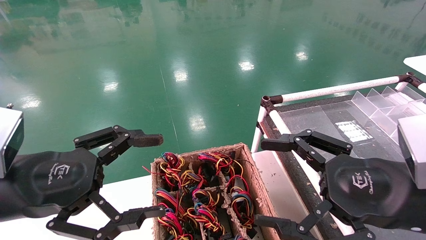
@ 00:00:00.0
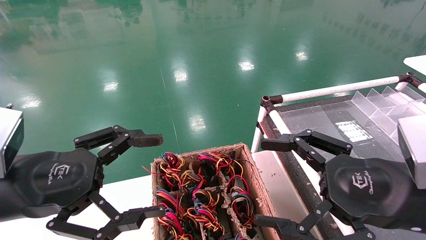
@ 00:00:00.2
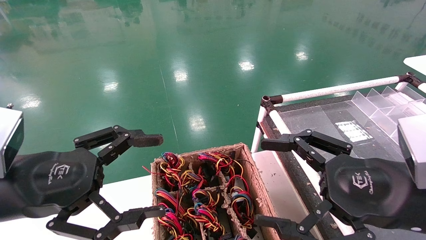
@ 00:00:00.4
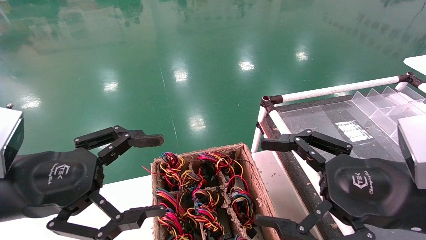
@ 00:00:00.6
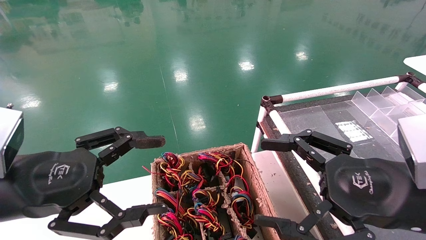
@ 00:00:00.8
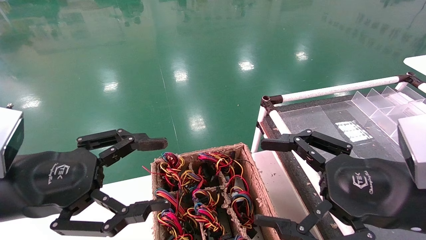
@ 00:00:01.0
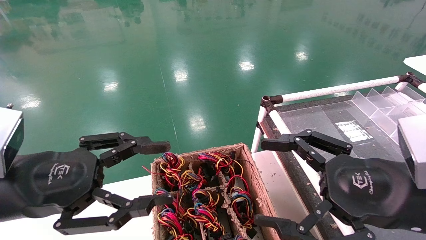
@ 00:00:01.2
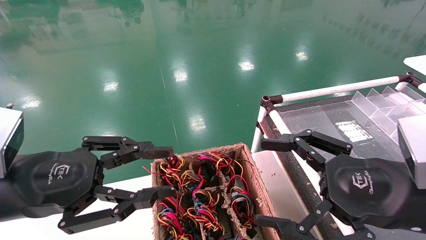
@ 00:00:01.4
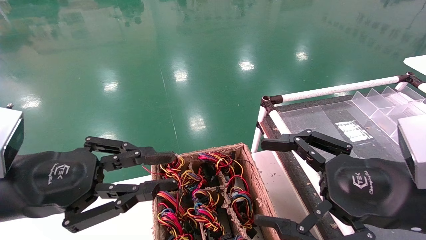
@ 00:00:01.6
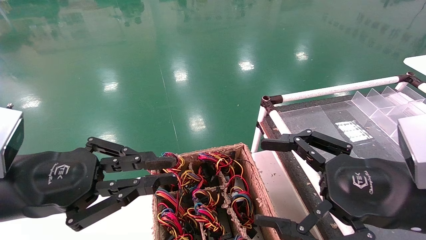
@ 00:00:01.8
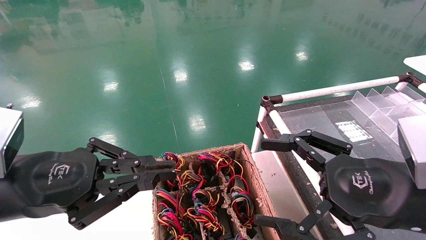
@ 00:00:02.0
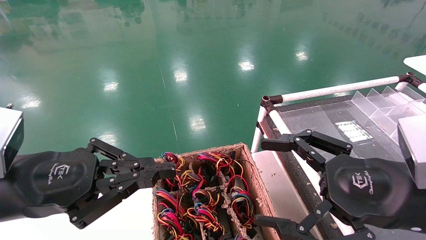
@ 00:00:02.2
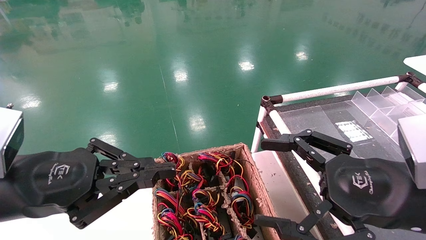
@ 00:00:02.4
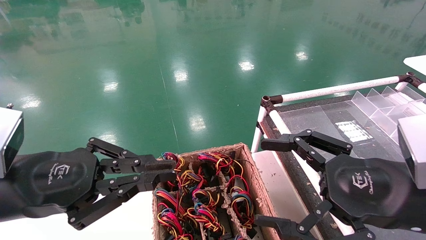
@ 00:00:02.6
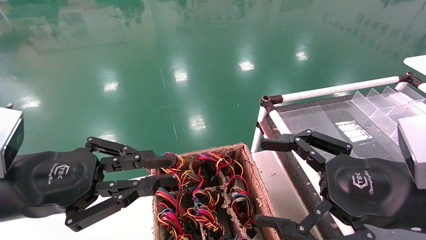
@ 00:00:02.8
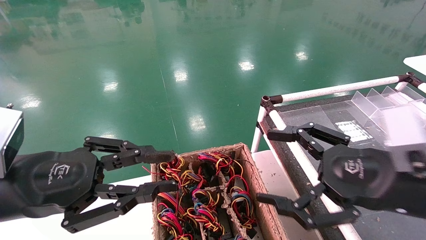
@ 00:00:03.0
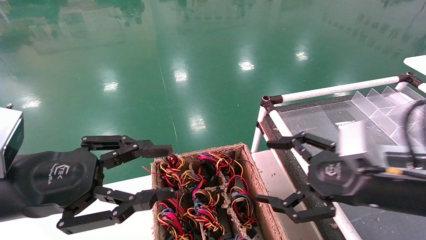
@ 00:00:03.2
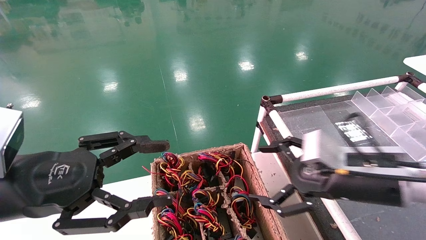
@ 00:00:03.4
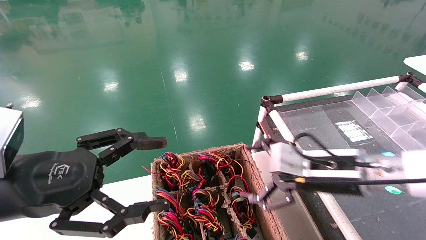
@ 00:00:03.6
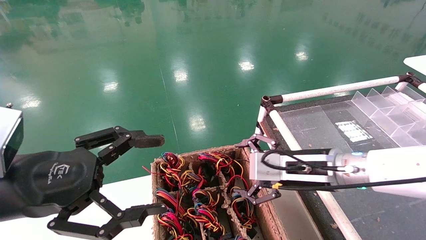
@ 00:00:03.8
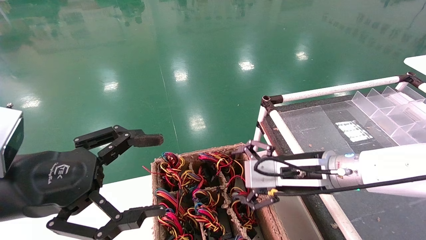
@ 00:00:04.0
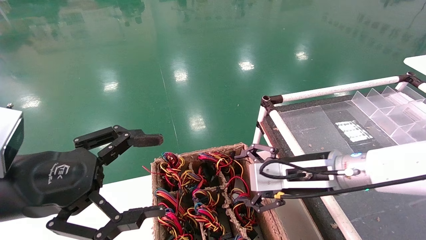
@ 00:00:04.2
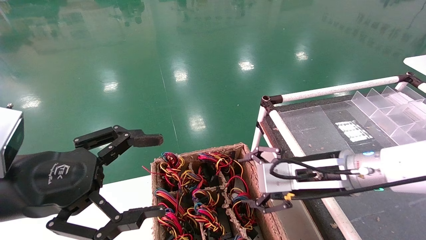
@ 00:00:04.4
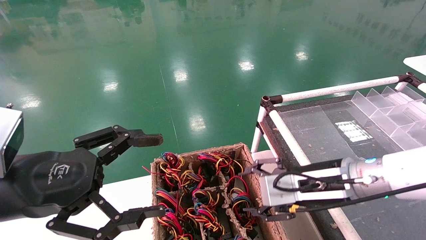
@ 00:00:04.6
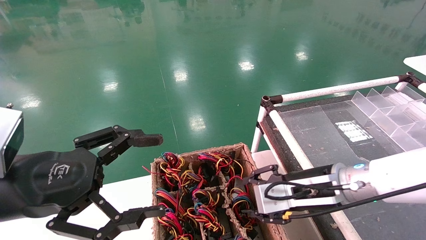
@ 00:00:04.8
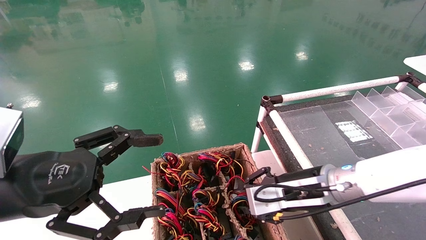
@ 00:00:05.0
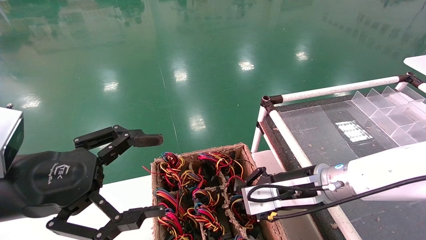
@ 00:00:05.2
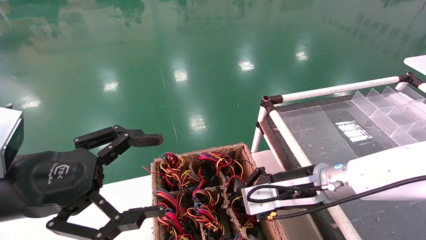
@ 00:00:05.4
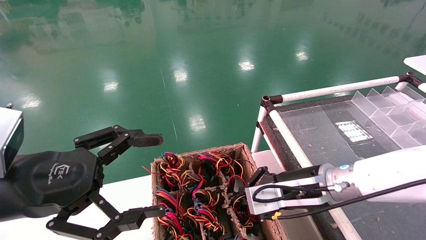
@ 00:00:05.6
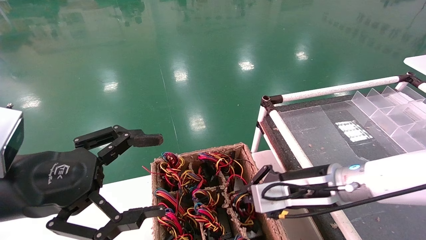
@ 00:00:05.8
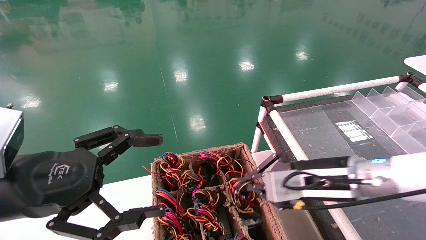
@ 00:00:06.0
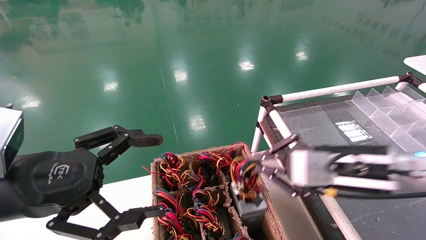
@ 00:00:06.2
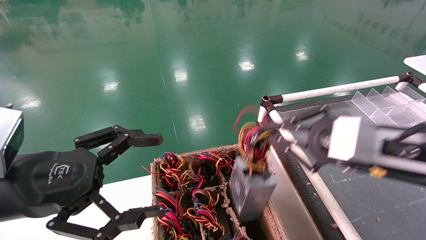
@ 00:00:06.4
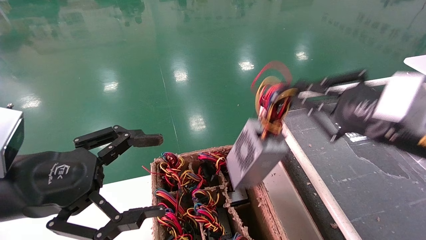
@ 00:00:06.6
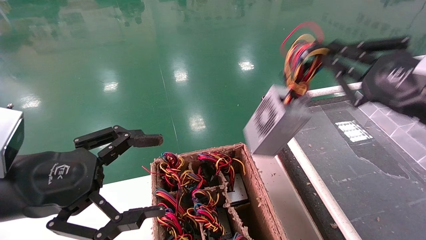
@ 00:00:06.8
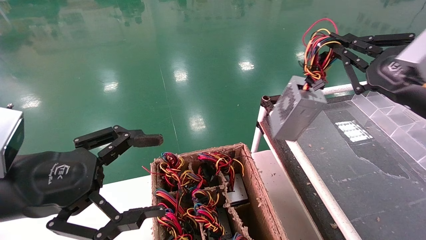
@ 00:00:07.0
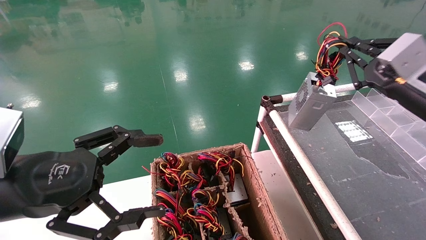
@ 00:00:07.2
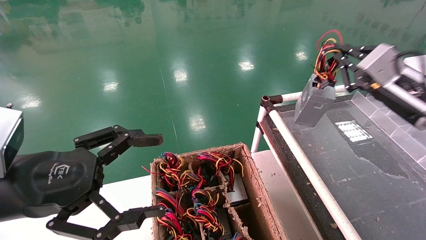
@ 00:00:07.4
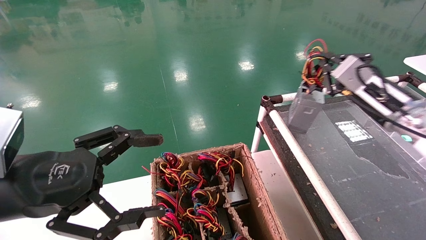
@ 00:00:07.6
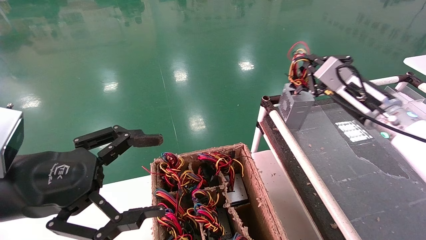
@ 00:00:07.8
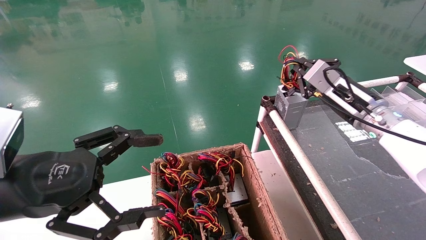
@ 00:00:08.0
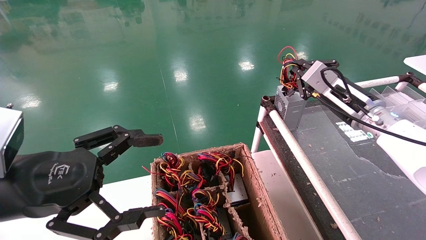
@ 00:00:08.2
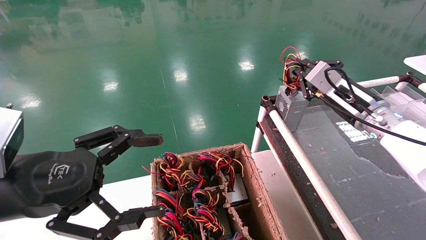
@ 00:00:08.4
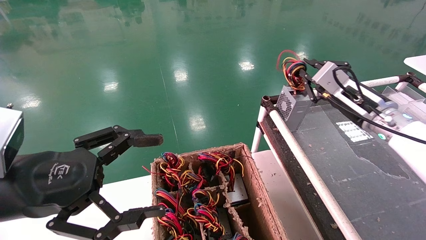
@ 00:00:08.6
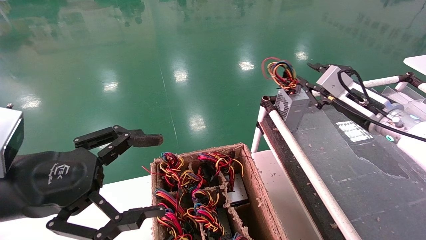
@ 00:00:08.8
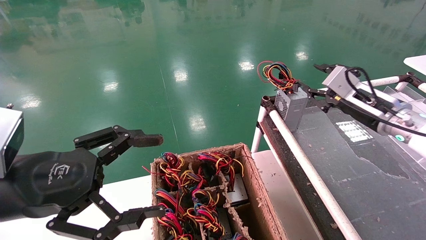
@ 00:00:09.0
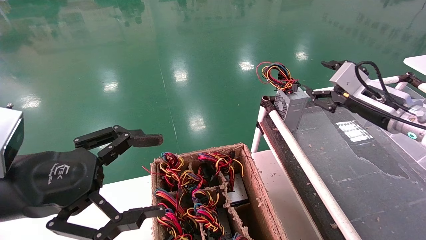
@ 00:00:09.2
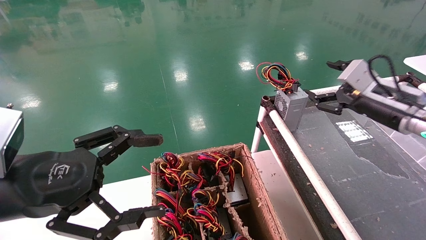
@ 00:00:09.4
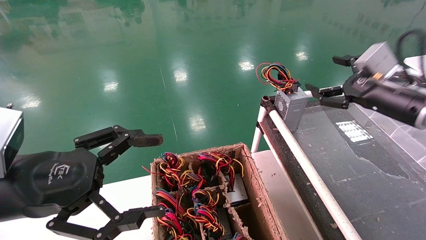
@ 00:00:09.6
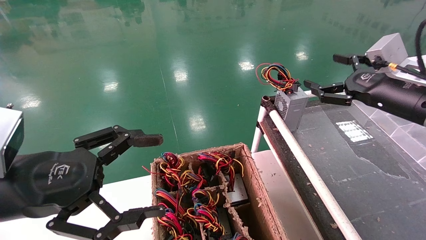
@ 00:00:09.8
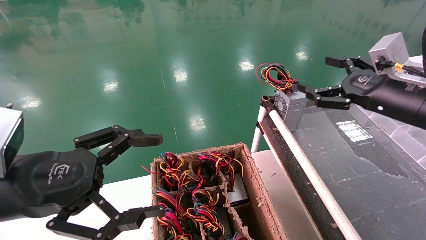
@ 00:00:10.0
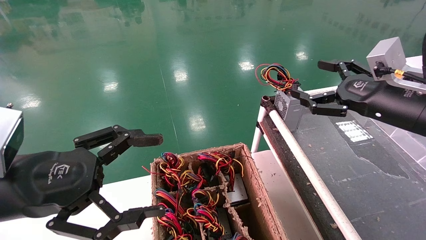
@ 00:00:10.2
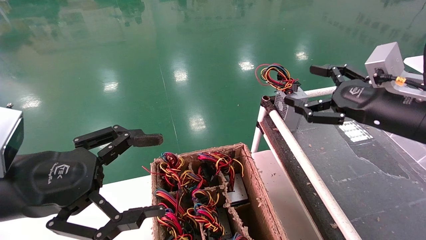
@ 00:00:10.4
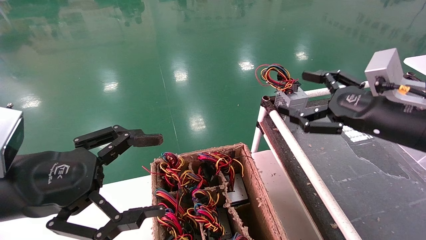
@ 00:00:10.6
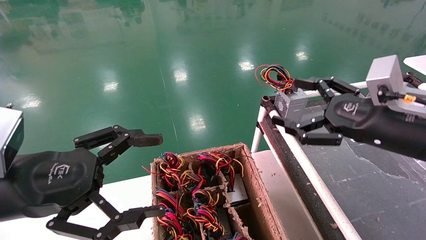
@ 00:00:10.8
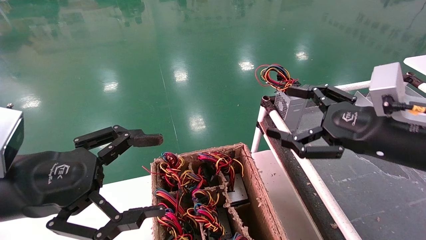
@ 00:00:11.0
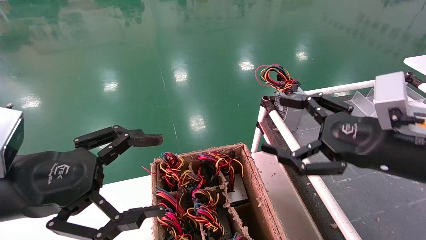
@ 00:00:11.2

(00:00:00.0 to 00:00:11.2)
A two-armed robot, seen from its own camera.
Step, 00:00:02.2 - 00:00:05.4: Grab and lift the power supply from the large box.
Step, 00:00:05.6 - 00:00:08.4: Place the power supply on the operating table.
00:00:00.0 - 00:00:01.6: The left gripper closes.
00:00:01.6 - 00:00:03.2: The left gripper closes and opens again. Meanwhile the right gripper shifts about 5 cm forward.
00:00:03.2 - 00:00:04.8: The left gripper opens, while the right gripper moves to the left and forward, some 10 cm, and closes up.
00:00:04.8 - 00:00:06.4: The right gripper heads upward, to the right and backward, covering roughly 10 cm, and closes up.
00:00:06.4 - 00:00:08.0: The right gripper heads forward, covering some 15 cm.
00:00:08.0 - 00:00:09.6: The right gripper shifts approximately 5 cm to the right, and opens its fingers.
00:00:09.6 - 00:00:11.2: The right gripper is displaced backward and to the left by approximately 15 cm.
